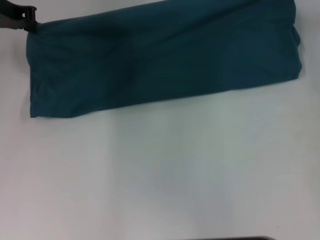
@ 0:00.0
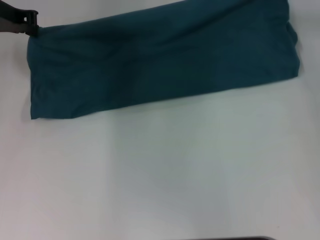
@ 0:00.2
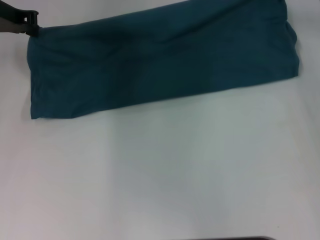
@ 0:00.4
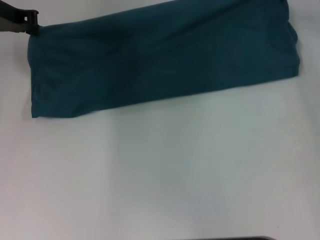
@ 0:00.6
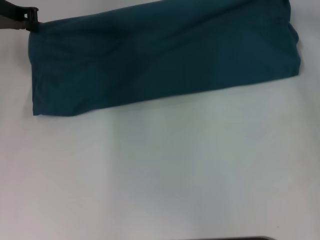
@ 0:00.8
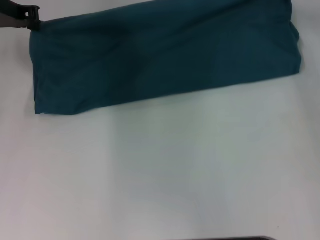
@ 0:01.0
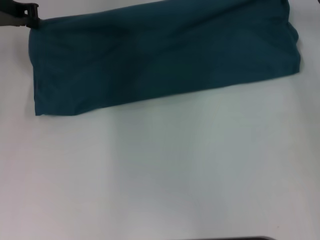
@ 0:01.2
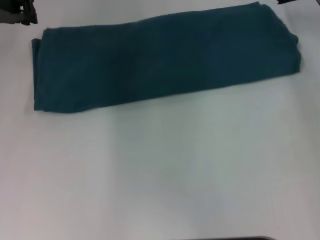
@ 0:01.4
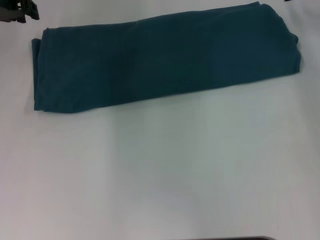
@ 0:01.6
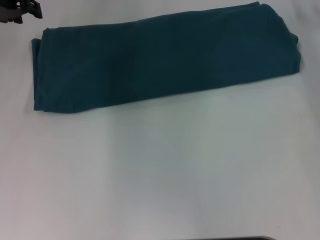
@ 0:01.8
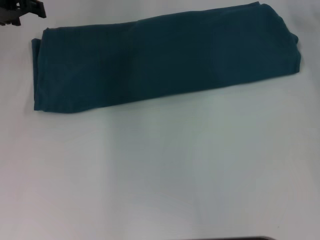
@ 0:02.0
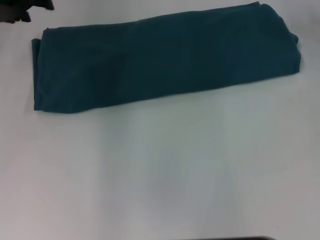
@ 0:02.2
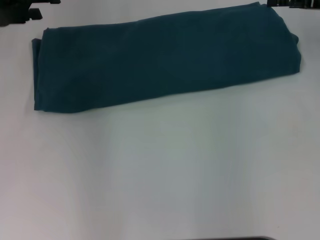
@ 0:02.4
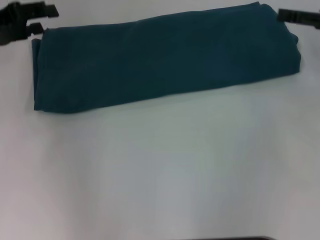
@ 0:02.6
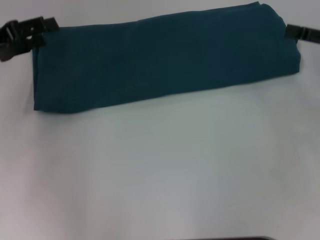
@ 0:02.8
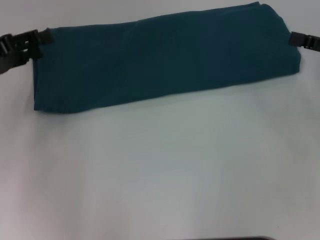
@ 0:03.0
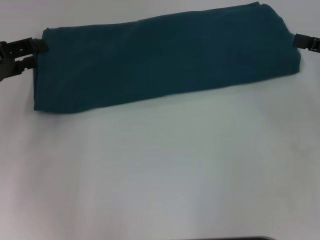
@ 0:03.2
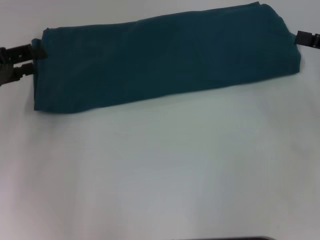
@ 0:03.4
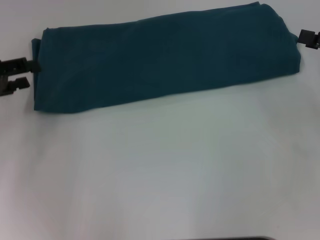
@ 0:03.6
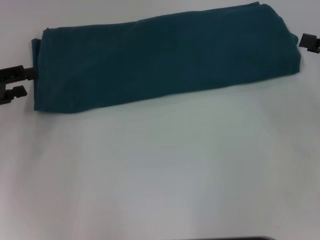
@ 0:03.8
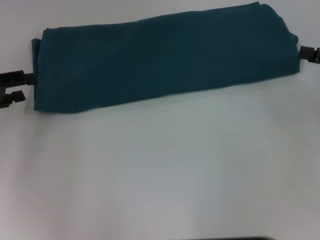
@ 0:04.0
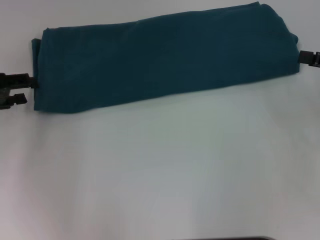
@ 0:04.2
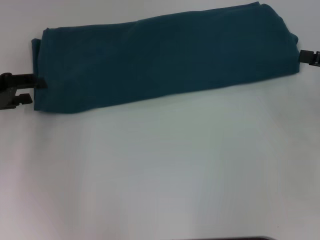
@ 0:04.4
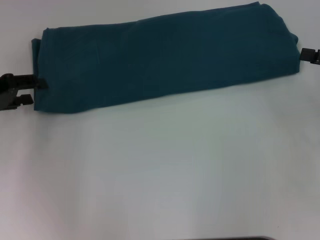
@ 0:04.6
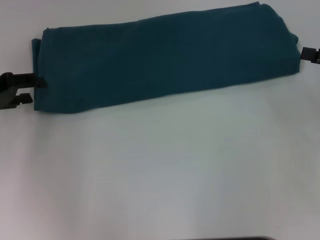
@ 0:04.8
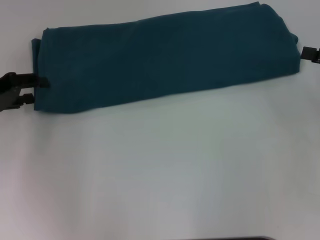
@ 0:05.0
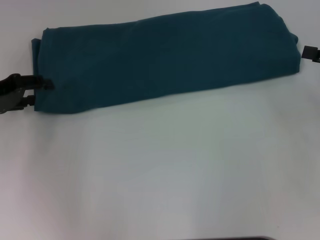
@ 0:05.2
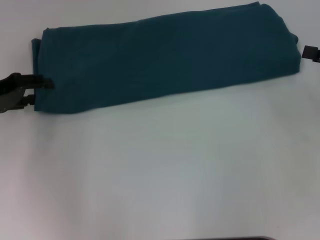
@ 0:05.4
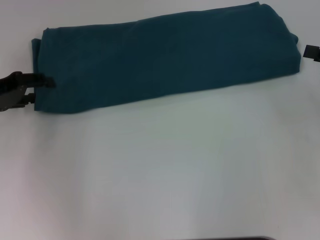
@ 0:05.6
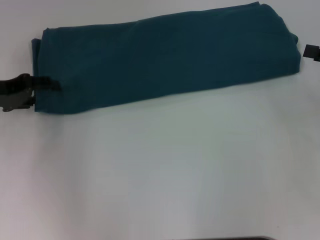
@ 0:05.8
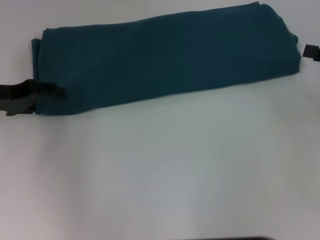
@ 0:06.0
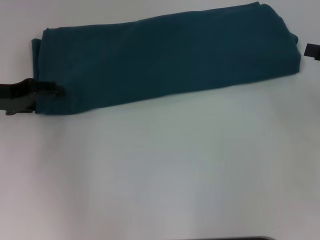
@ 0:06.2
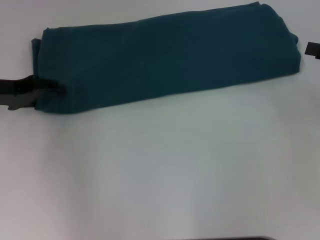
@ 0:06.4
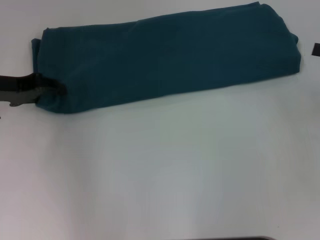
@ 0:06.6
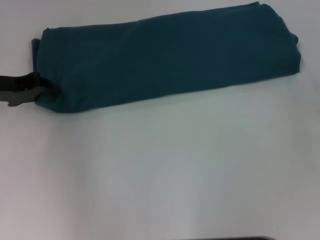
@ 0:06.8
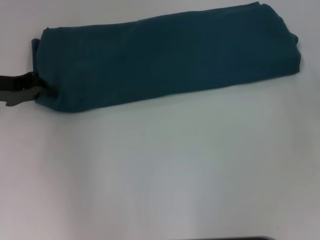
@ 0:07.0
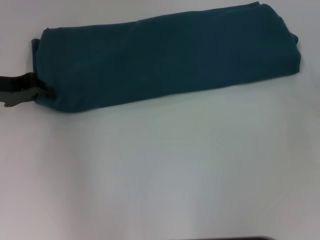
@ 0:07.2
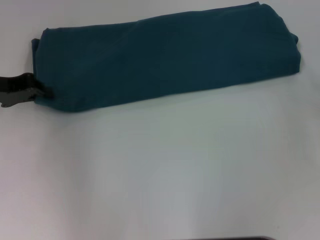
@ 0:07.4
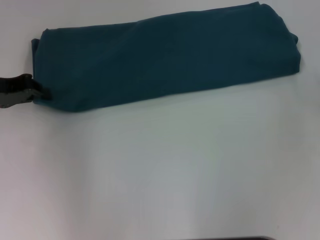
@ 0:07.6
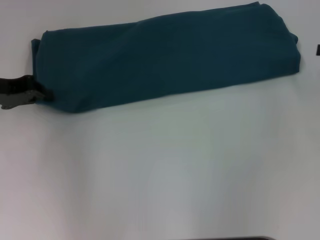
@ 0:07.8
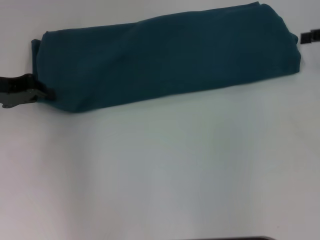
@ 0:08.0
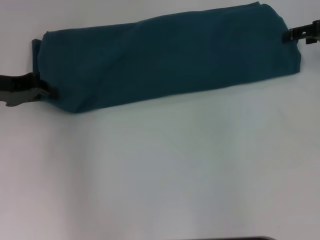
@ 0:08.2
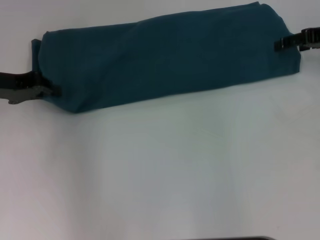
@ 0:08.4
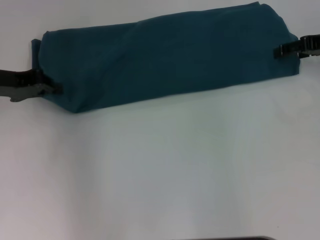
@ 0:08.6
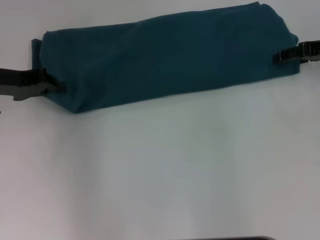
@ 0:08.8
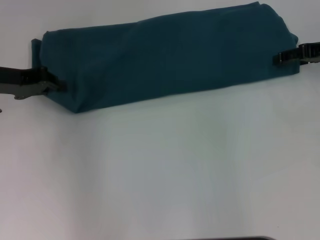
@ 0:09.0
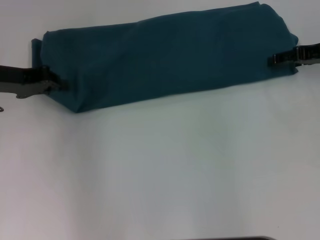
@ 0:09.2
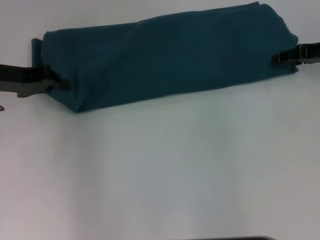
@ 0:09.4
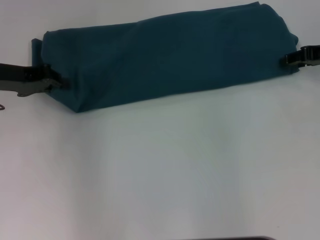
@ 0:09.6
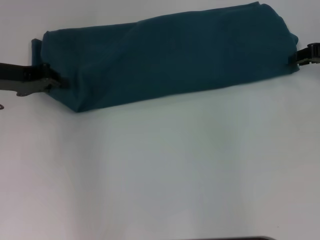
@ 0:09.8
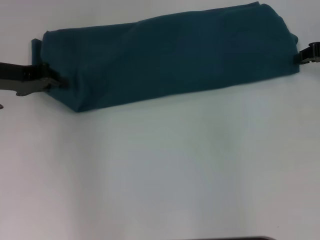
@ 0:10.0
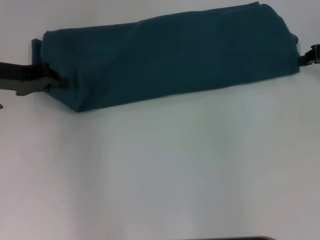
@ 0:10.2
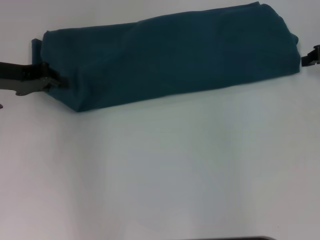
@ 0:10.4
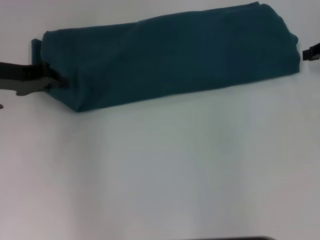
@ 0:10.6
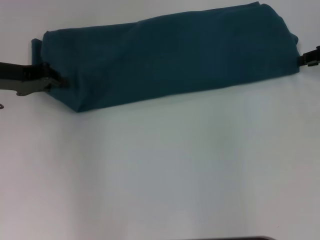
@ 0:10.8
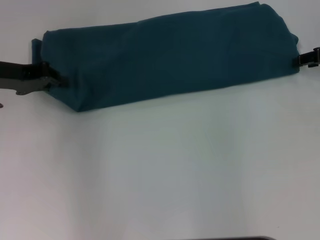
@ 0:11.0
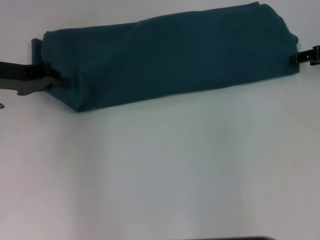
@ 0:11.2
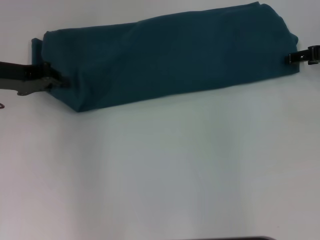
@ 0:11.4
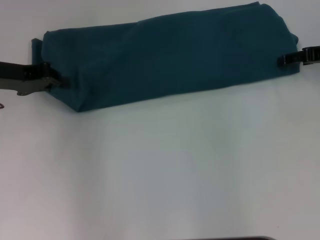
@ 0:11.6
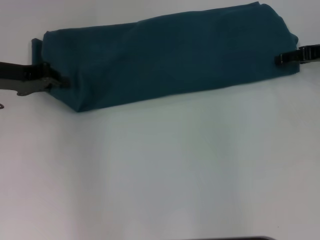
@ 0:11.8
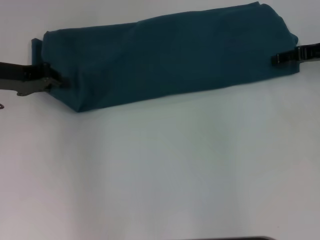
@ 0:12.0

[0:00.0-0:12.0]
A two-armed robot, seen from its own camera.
0:00.0 to 0:01.6: The grippers make only small movements.
0:01.6 to 0:03.0: The right gripper goes about 20 cm backward and to the right, and opens its fingers. The left gripper is displaced backward, downward and to the left by approximately 15 cm, and opens up.
0:03.0 to 0:04.4: There are only small adjustments of the grippers.
0:04.4 to 0:06.0: The grippers move only a little.
0:06.0 to 0:07.6: The left gripper closes.
0:07.6 to 0:09.0: The right gripper shifts roughly 10 cm forward and to the left.
0:10.4 to 0:12.0: The right gripper opens.

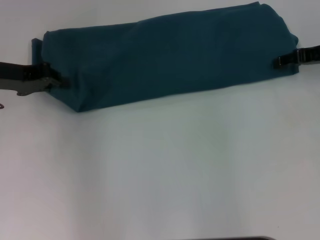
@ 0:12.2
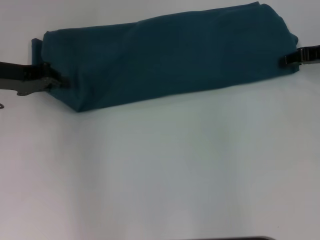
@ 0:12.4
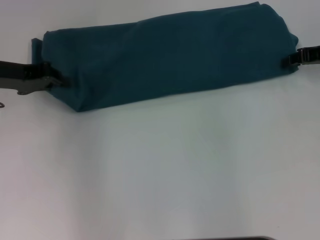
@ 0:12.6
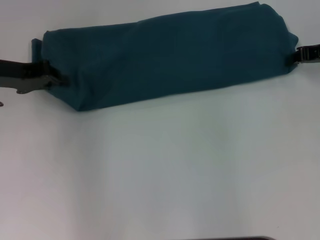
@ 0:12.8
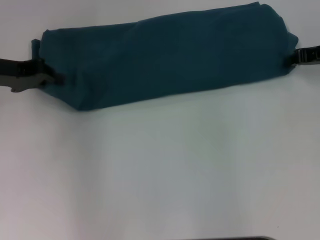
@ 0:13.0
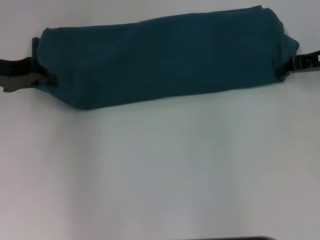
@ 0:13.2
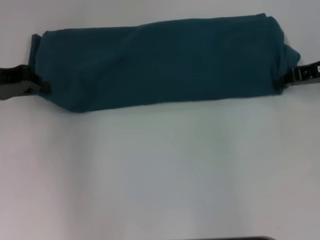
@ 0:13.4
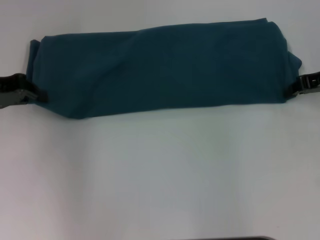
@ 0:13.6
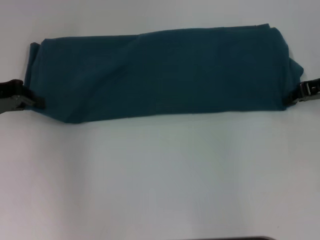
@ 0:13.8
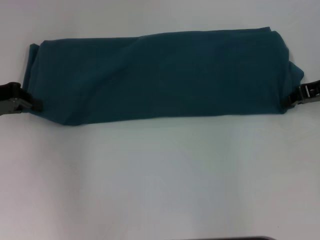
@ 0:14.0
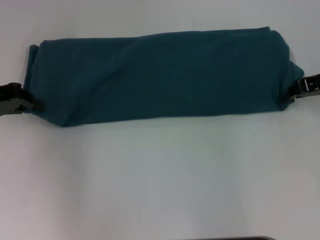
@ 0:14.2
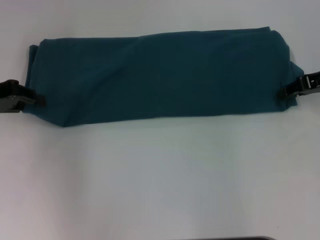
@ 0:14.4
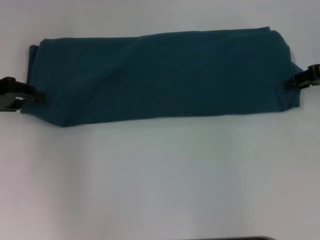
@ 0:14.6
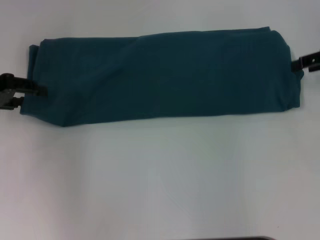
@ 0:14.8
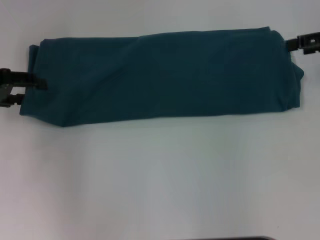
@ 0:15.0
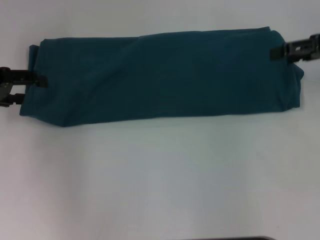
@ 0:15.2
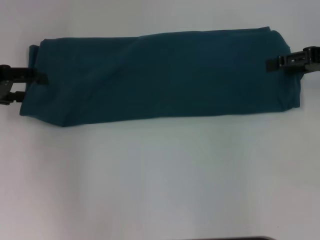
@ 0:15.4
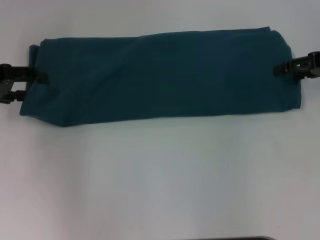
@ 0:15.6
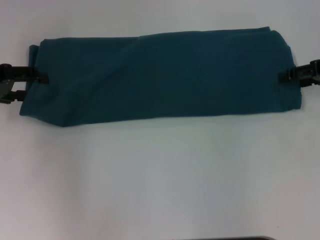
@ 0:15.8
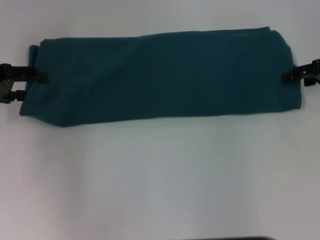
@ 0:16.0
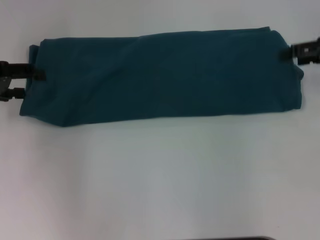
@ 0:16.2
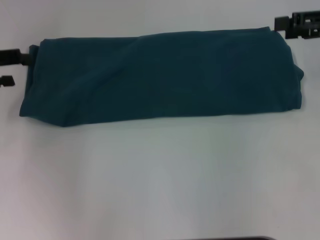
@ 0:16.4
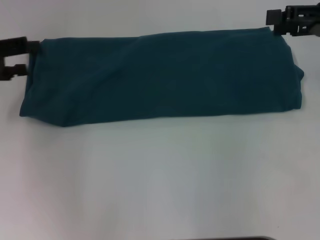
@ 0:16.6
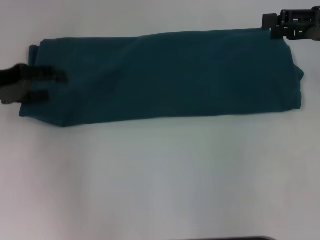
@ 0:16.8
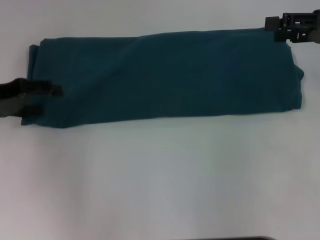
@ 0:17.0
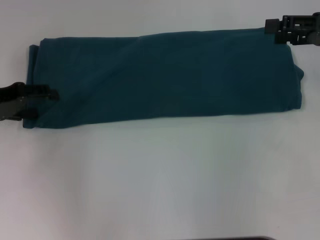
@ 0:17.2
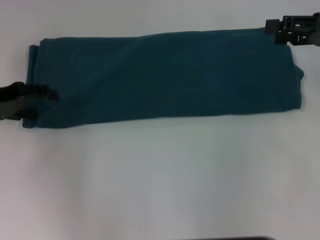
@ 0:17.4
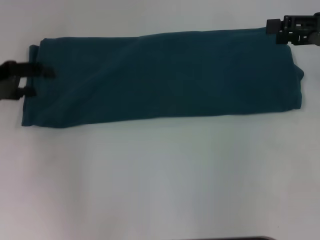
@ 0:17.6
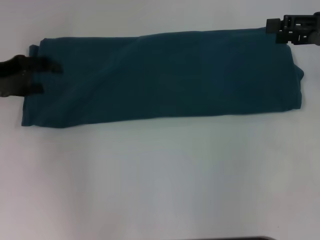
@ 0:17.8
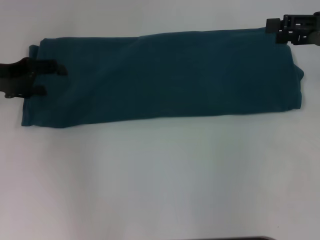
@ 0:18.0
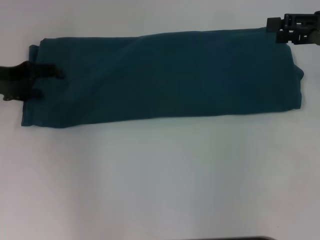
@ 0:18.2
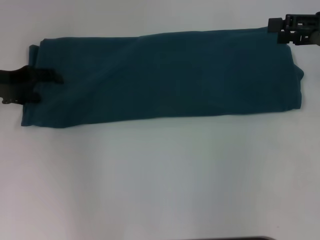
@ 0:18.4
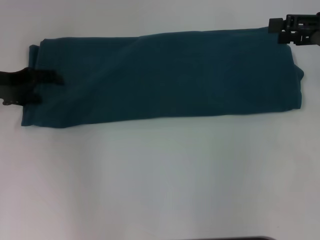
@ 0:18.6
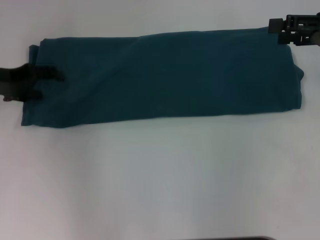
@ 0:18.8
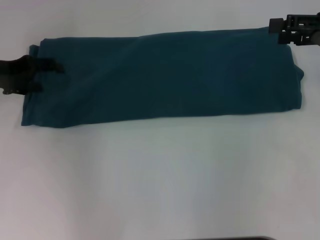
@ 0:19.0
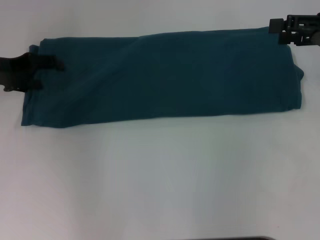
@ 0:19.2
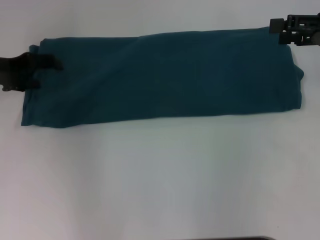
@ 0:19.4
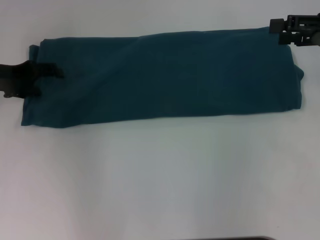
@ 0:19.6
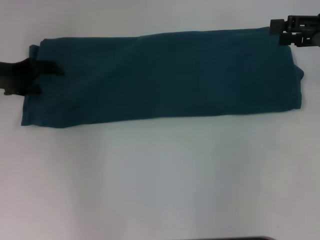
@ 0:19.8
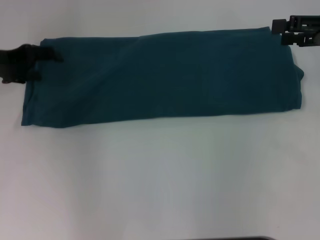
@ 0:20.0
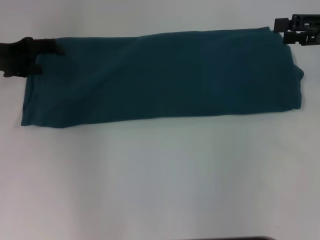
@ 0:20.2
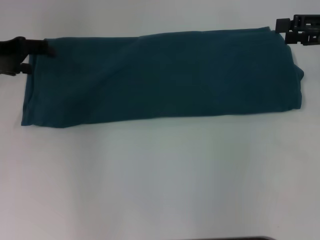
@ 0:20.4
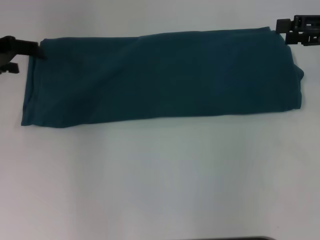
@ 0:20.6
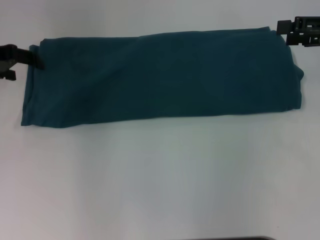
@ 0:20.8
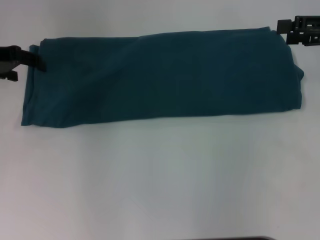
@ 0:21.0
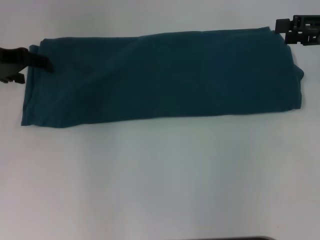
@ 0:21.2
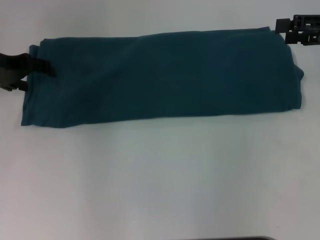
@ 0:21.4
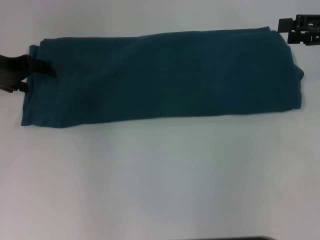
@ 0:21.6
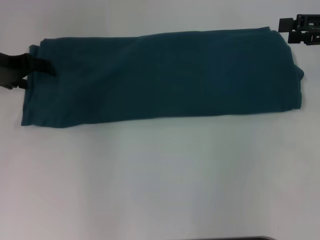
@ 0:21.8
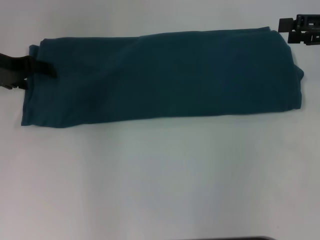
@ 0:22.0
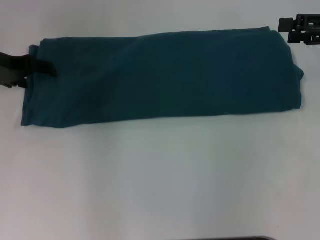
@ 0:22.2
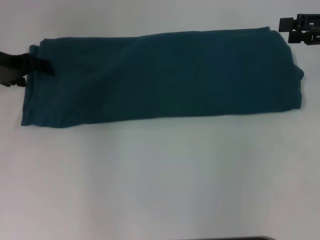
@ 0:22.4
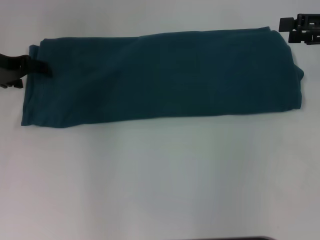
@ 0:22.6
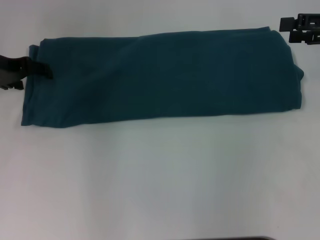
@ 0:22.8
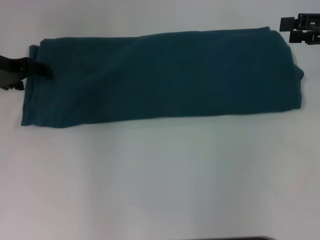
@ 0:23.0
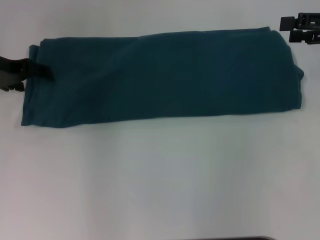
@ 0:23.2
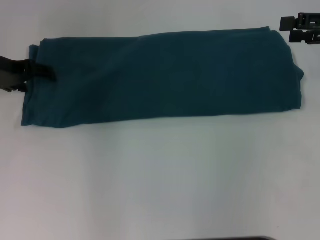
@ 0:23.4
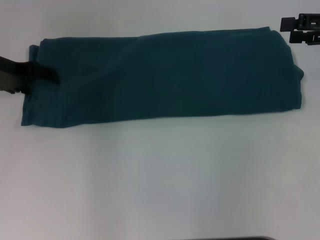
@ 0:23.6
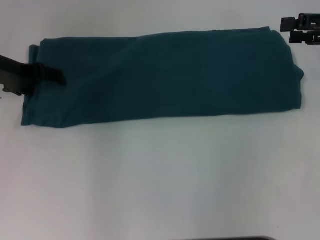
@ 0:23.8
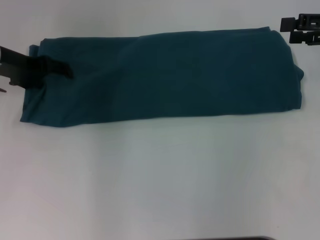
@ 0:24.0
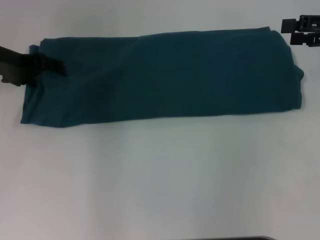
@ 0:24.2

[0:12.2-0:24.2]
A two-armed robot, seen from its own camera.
Step, 0:12.2 to 0:14.4: Pull the clothes with your left hand.
Step, 0:12.2 to 0:14.4: Pull the clothes with your right hand.
0:12.2 to 0:13.8: The right gripper closes.
0:13.8 to 0:15.2: The right gripper ends up about 5 cm from where it was, and opens up. The left gripper opens up.
0:15.2 to 0:16.6: The grippers move only a little.
0:16.6 to 0:18.2: The left gripper changes place by approximately 5 cm.
0:18.2 to 0:19.8: The two grippers keep their place.
0:19.8 to 0:24.2: The grippers make only small movements.
